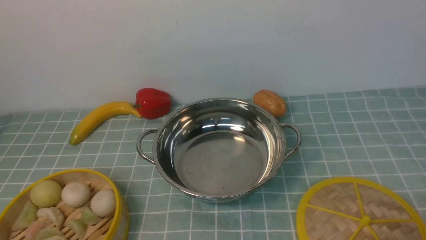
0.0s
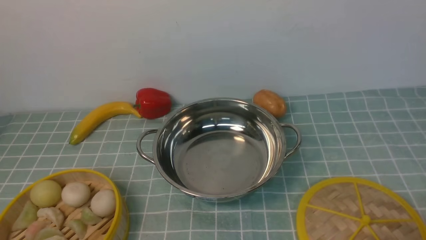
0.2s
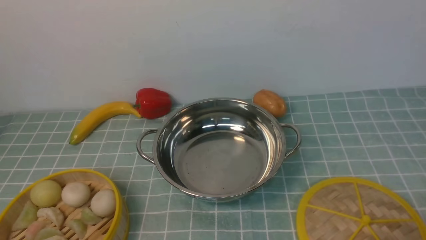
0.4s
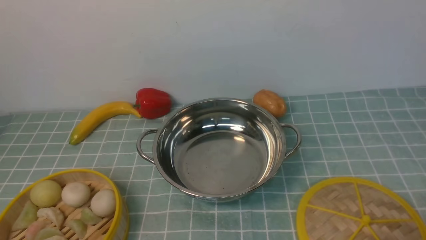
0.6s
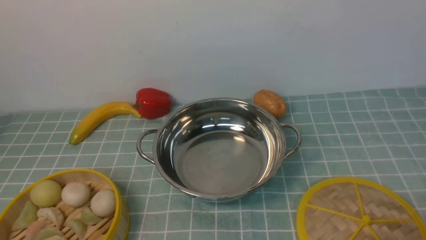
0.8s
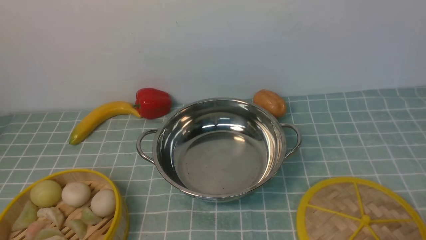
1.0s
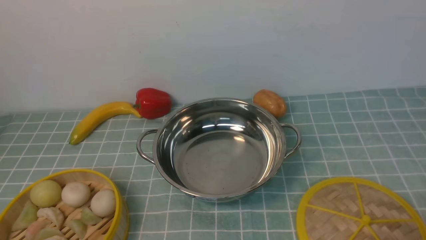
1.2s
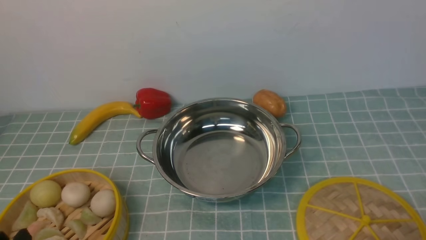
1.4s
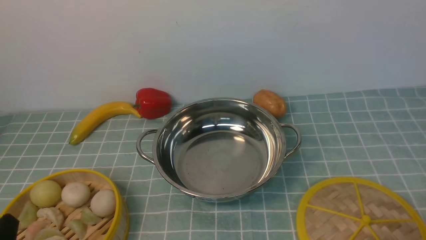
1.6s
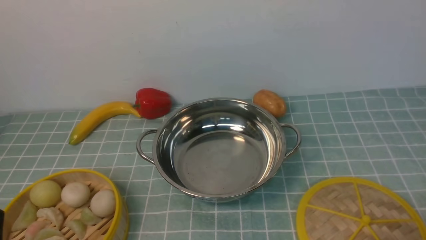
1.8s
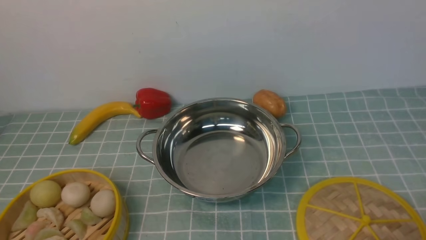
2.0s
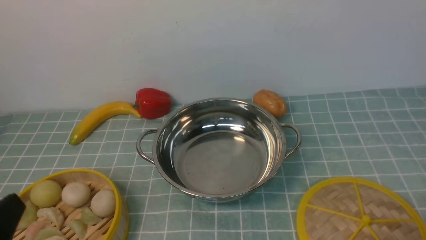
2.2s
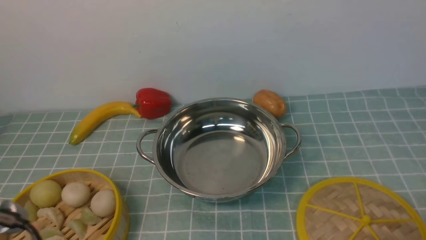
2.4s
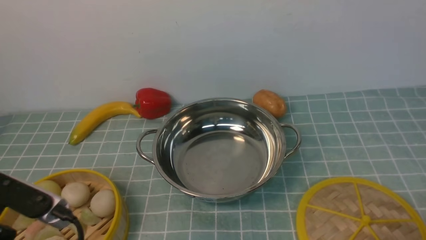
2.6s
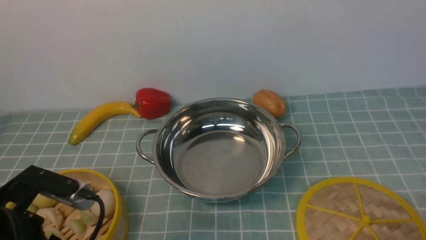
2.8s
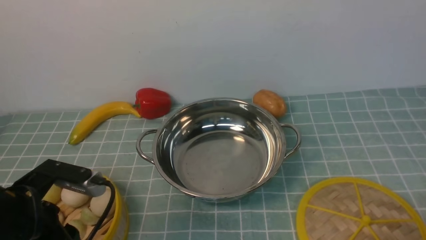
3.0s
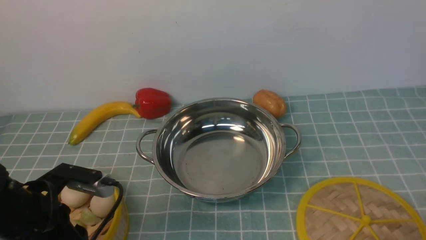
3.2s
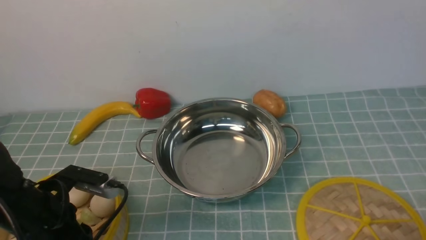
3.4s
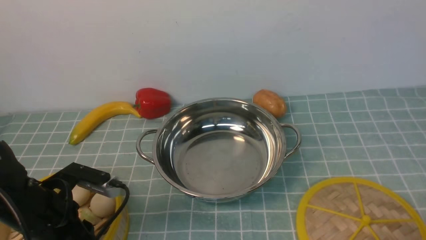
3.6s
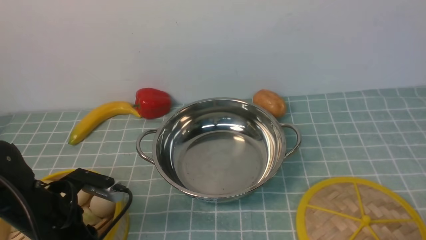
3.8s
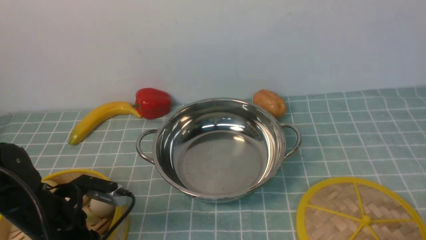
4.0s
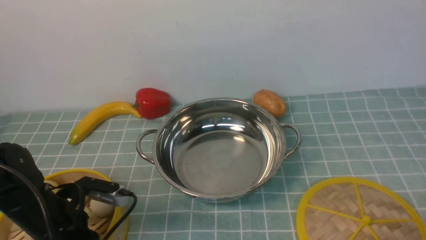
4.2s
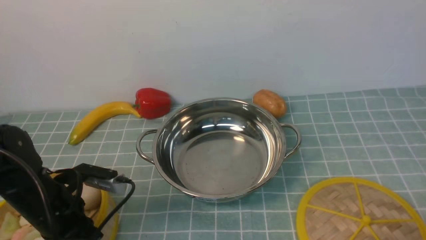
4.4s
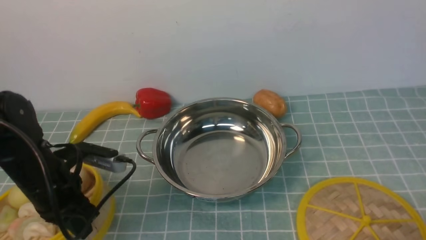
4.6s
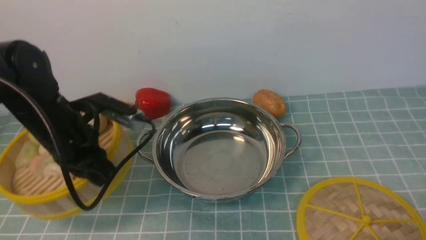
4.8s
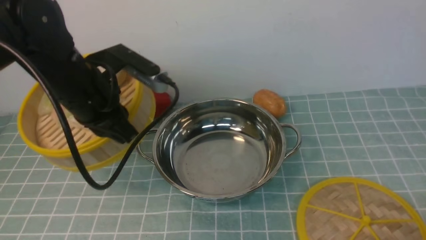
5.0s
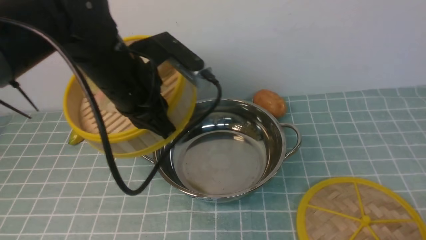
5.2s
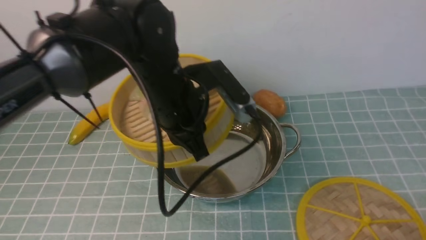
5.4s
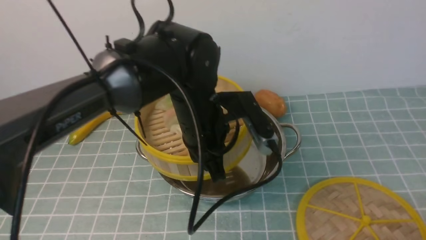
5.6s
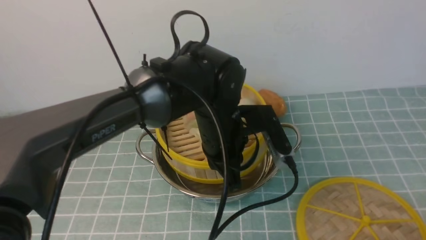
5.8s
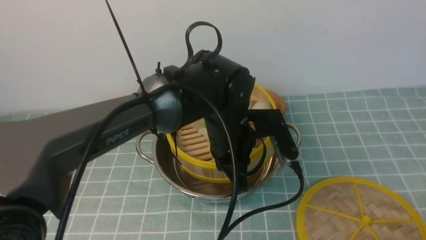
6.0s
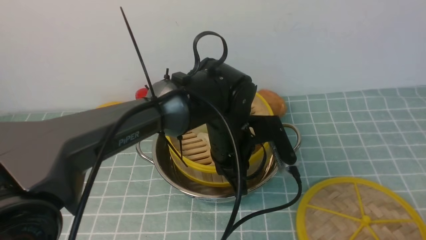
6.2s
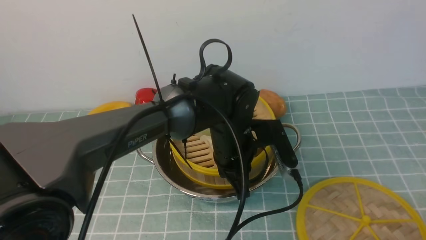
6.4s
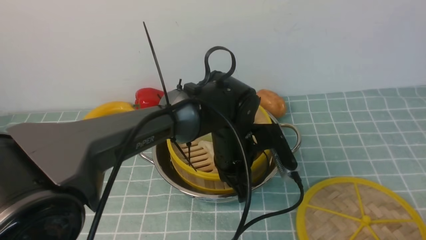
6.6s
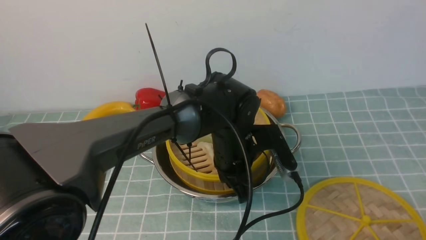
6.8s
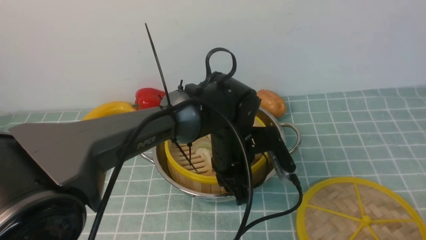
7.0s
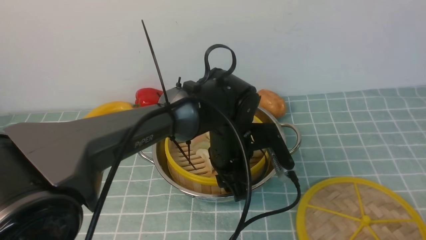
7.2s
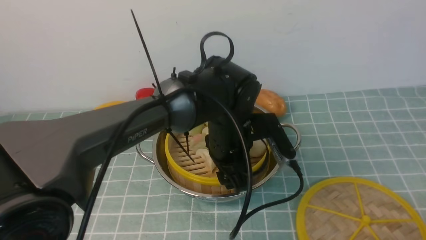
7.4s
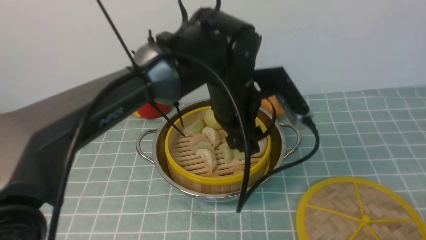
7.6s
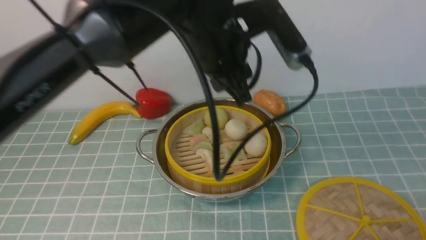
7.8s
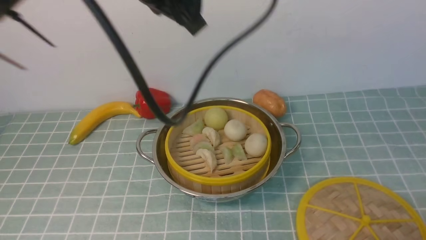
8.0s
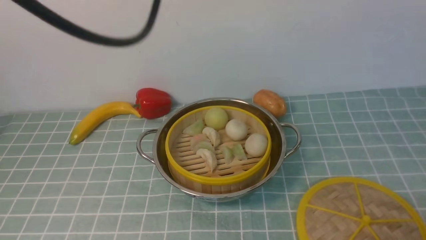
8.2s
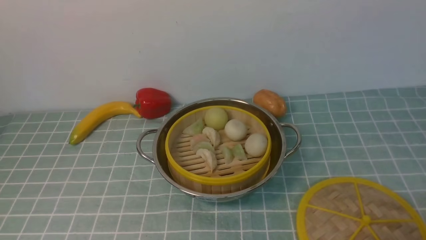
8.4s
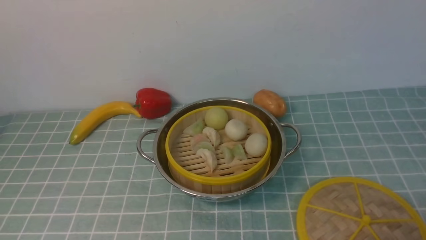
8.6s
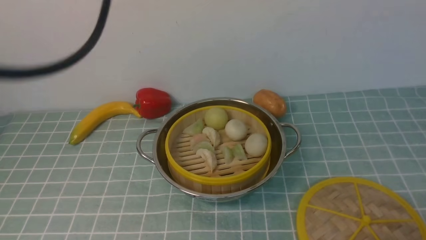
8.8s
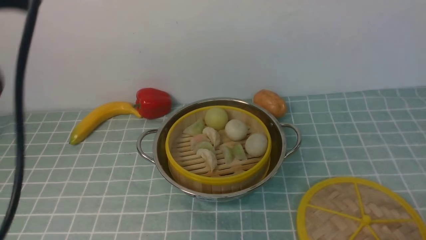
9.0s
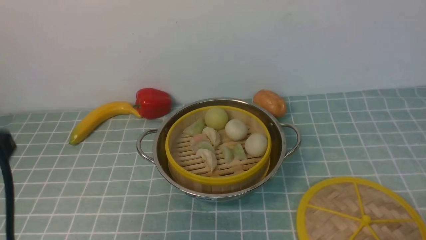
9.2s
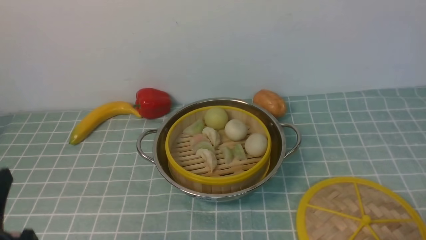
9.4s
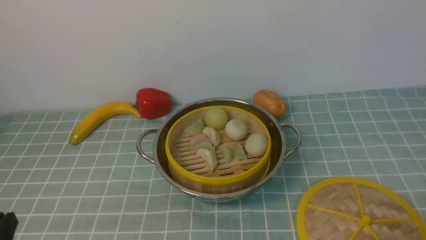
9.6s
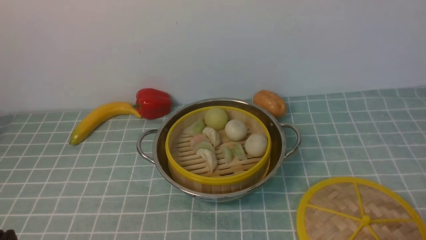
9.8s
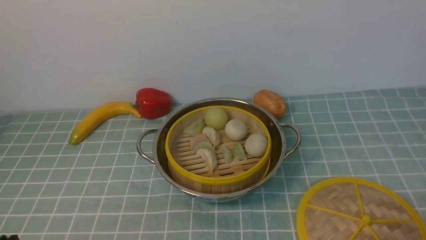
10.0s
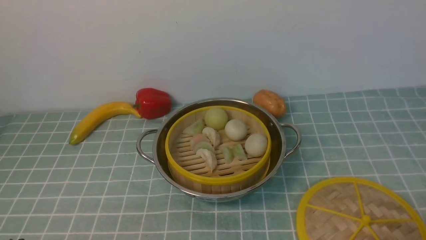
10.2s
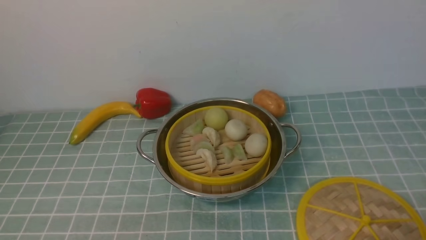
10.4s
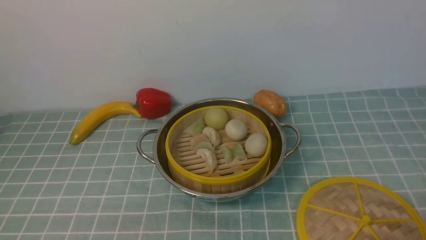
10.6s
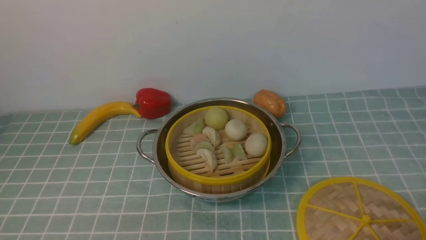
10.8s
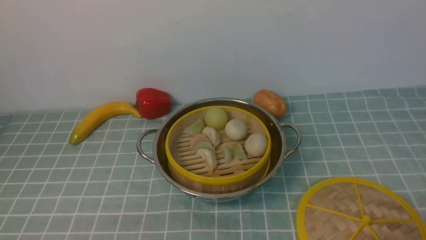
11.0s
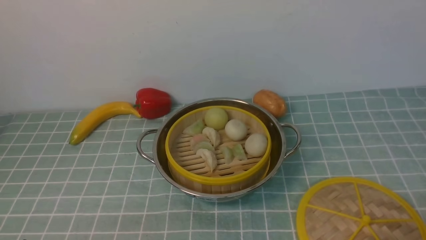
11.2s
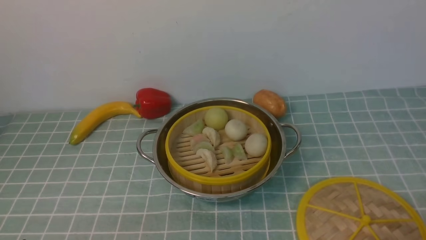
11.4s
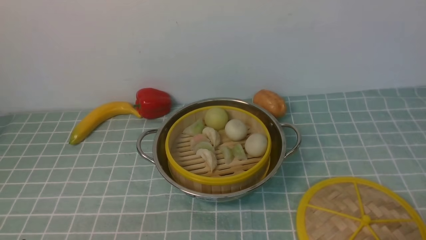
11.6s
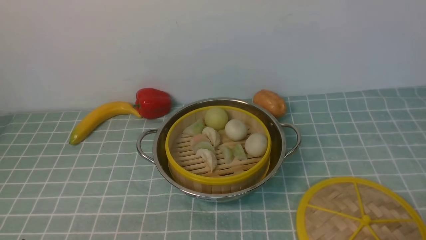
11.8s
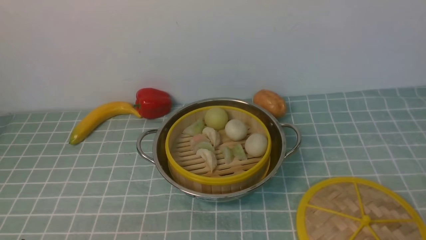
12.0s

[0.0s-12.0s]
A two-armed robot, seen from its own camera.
Task of the whole recording: place the steamer in the pot on the blue tablecloth, and put the lid on the steamer.
Step, 0.0s to 5.0s: use the left arm to lift the steamer closest to it.
Step, 5.2s to 8.2s: use the left arm to put the steamer into the iron steamer pot in the middle.
1.6s to 3.0s: The left gripper is displaced forward by some 10 cm.
3.0s to 4.4s: The left gripper goes roughly 5 cm forward, and closes its fingers.
4.4s to 6.0s: The left gripper is displaced to the right by approximately 25 cm.
6.0s to 7.6s: The left gripper goes about 5 cm upward, and opens.
7.6s to 9.0s: The left gripper goes about 30 cm to the left, backward and upward, and closes up.
9.0s to 10.4s: The left gripper heads downward and backward, covering approximately 30 cm.

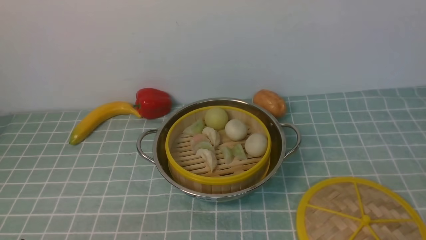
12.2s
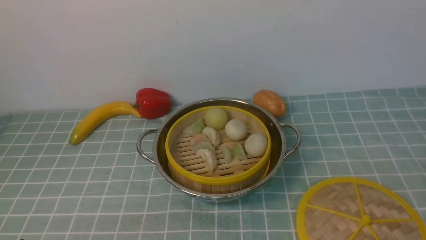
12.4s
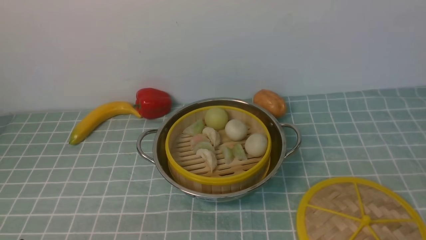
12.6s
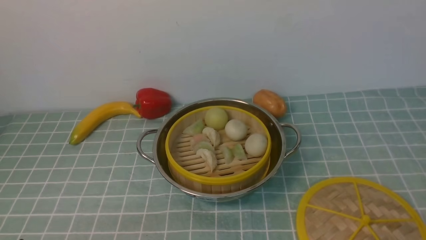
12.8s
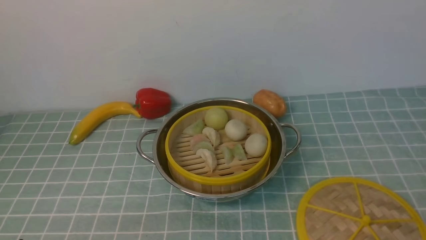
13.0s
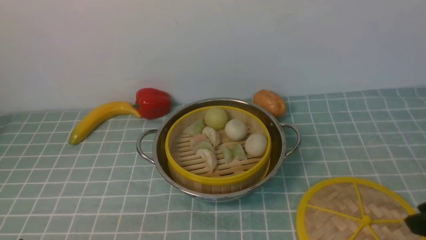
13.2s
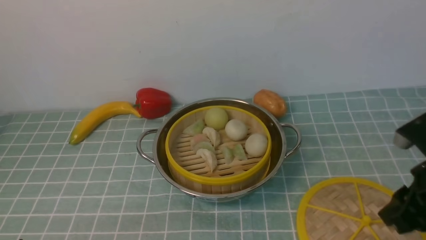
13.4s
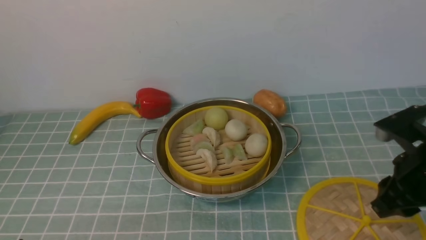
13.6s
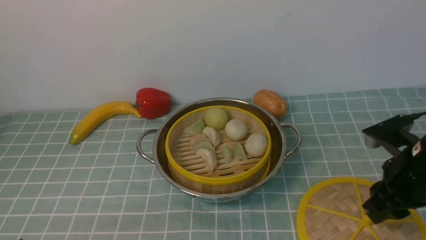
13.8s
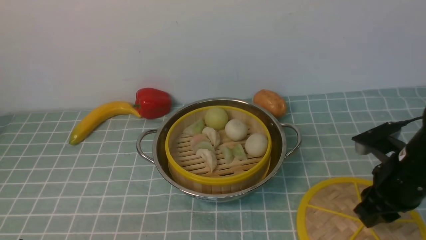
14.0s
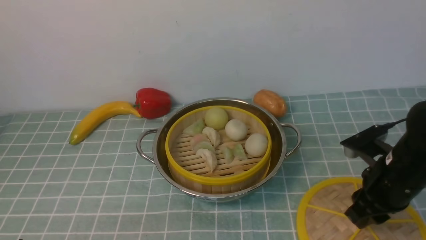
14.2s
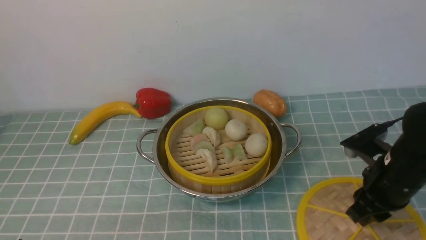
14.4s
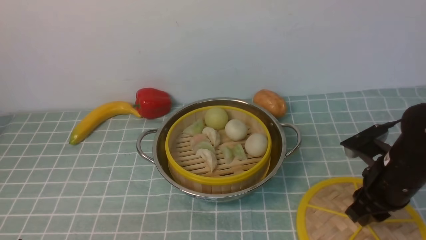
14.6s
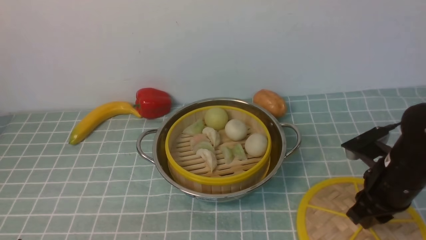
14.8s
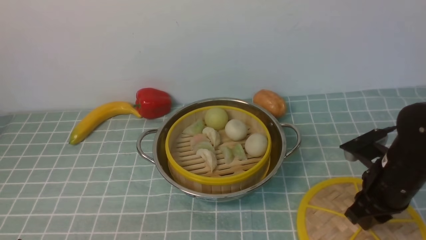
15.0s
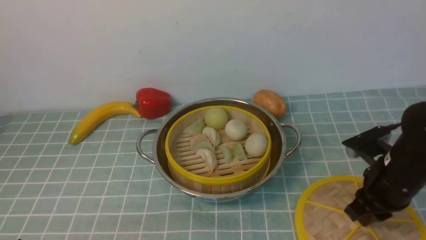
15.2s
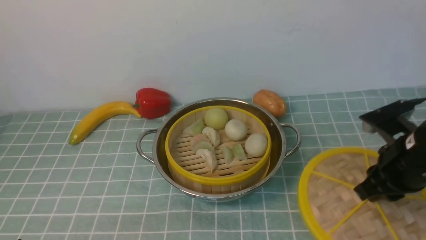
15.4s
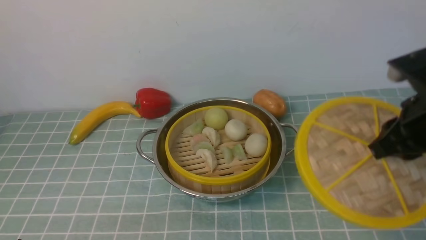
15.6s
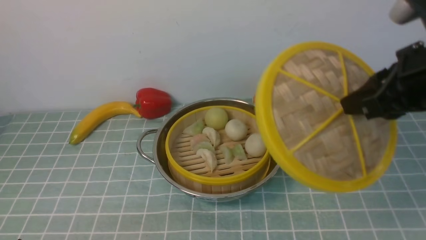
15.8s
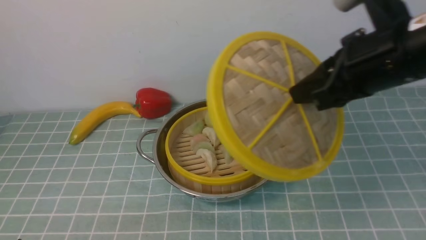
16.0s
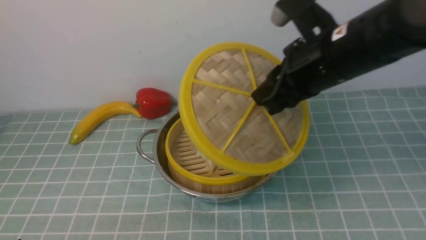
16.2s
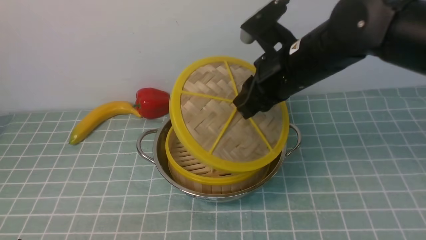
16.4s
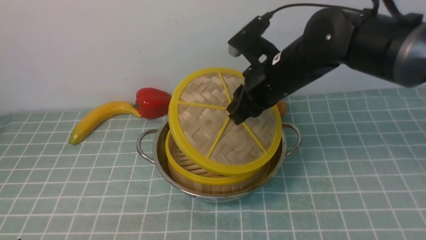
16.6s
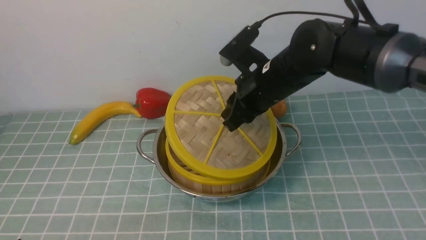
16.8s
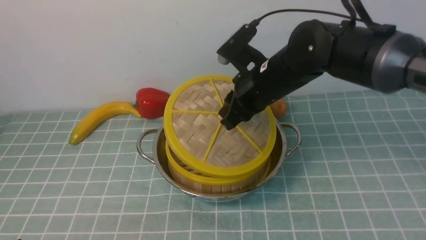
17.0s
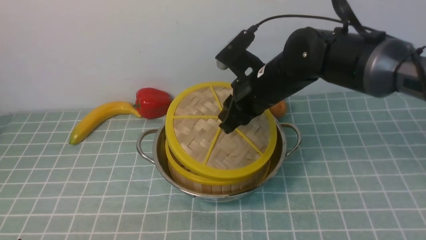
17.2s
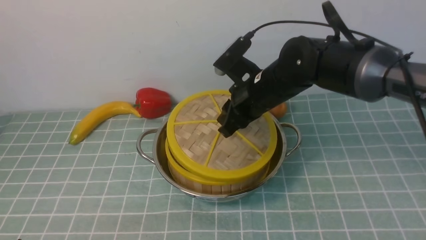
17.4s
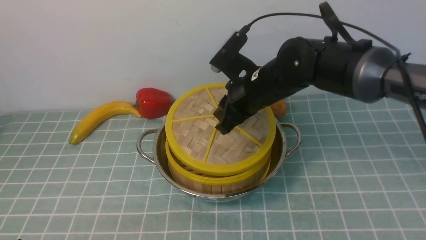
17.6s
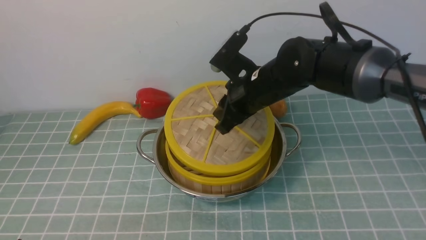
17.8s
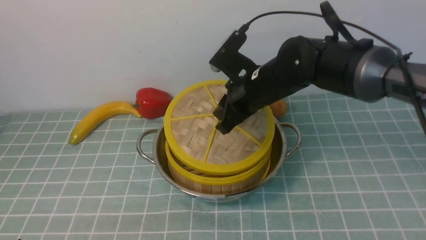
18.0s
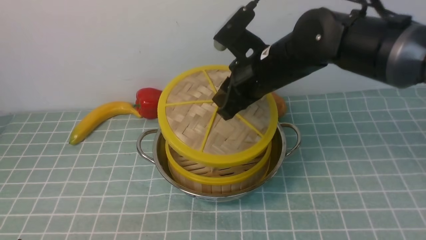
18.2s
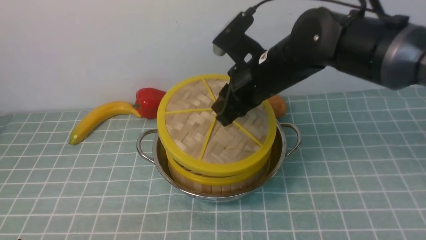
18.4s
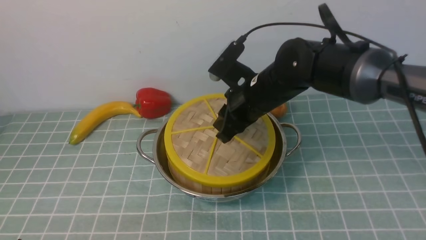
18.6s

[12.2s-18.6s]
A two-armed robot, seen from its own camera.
Task of the whole recording: place the steamer in the pot on the blue tablecloth, and put the lid on the steamer.
Step, 12.2s to 15.4s: use the right arm to lift the lid of the steamer.
12.2s to 13.8s: The right gripper goes approximately 20 cm forward.
13.8s to 15.4s: The right gripper closes.
15.4s to 17.0s: The right gripper moves to the left and forward, some 20 cm.
17.0s to 18.6s: The grippers move only a little.
